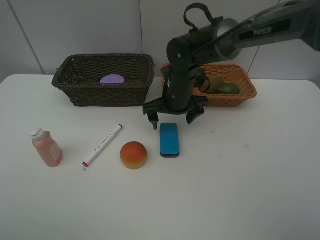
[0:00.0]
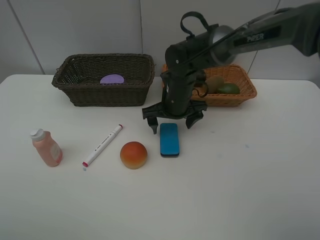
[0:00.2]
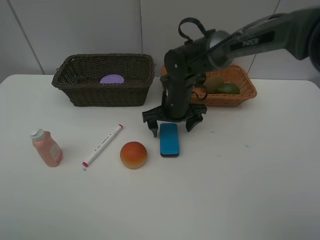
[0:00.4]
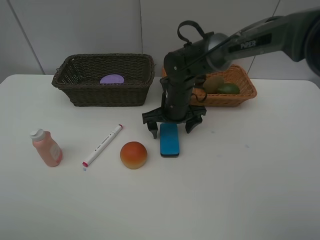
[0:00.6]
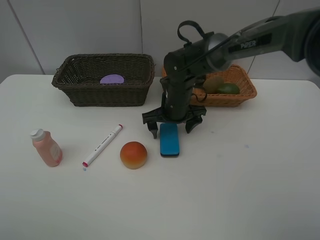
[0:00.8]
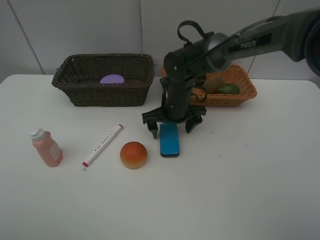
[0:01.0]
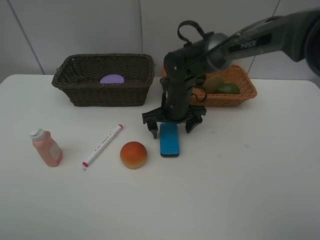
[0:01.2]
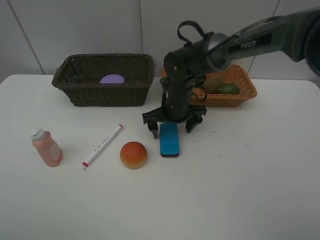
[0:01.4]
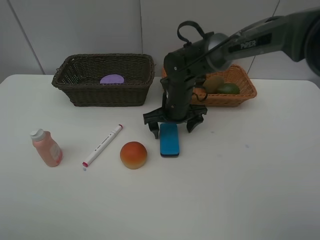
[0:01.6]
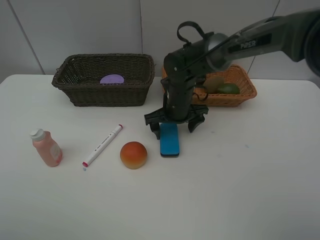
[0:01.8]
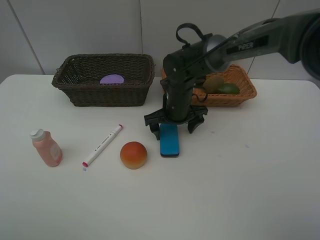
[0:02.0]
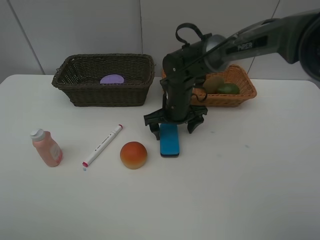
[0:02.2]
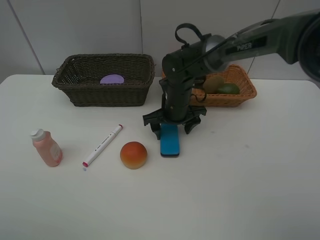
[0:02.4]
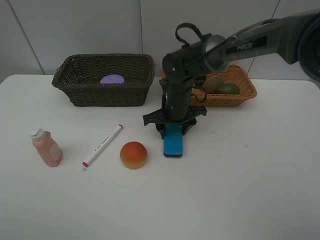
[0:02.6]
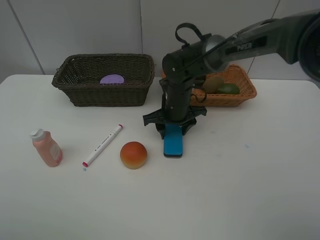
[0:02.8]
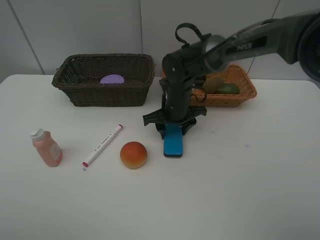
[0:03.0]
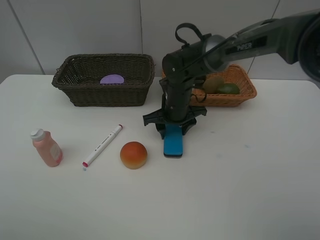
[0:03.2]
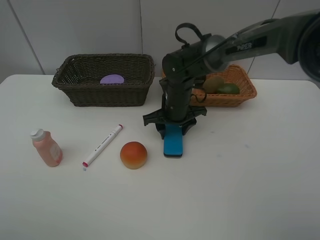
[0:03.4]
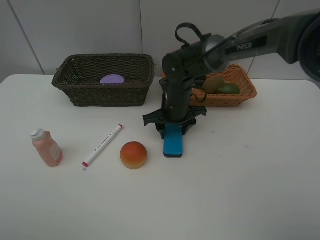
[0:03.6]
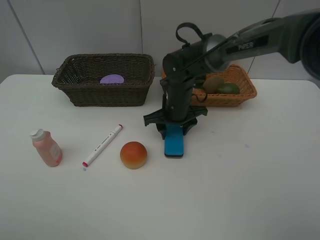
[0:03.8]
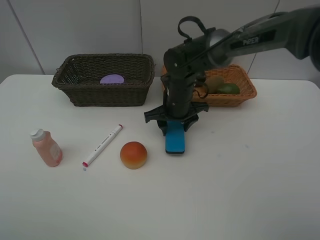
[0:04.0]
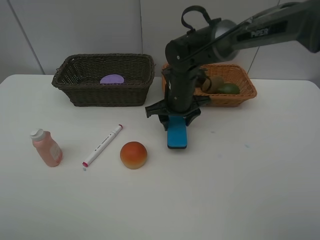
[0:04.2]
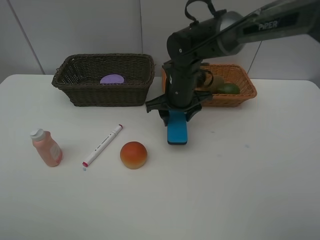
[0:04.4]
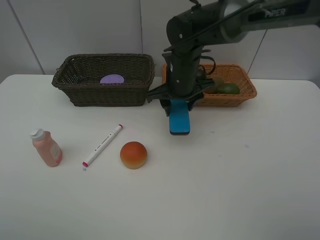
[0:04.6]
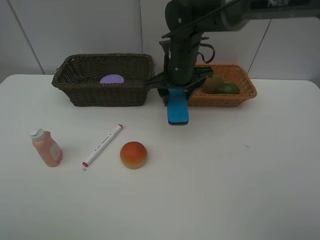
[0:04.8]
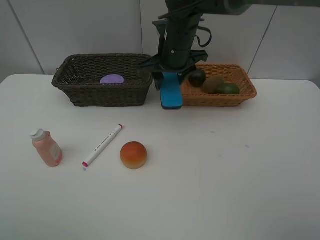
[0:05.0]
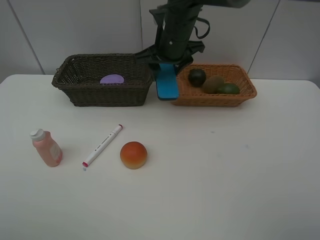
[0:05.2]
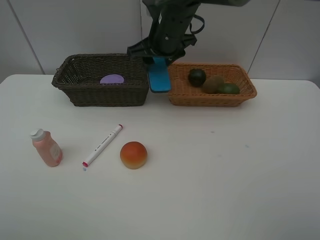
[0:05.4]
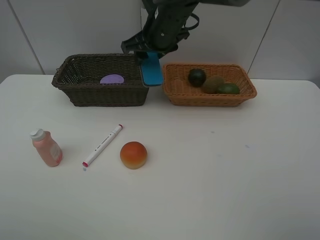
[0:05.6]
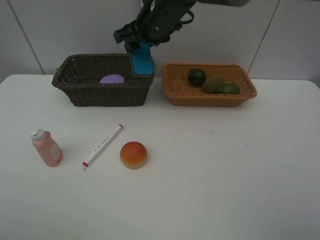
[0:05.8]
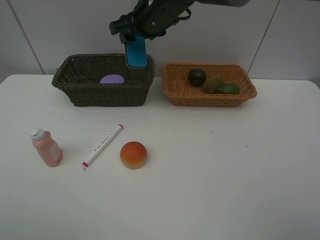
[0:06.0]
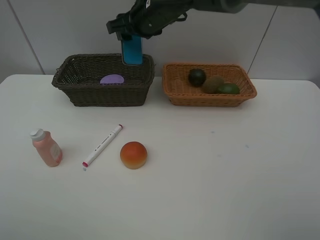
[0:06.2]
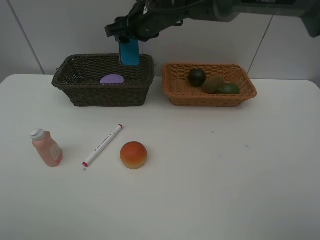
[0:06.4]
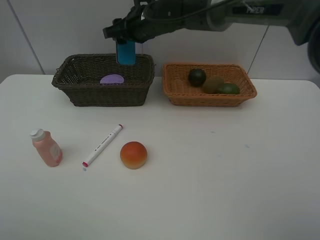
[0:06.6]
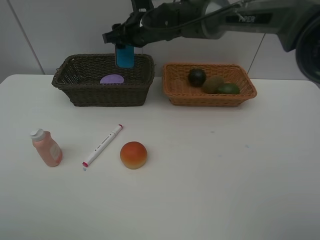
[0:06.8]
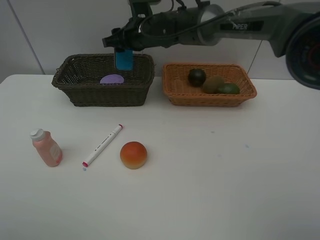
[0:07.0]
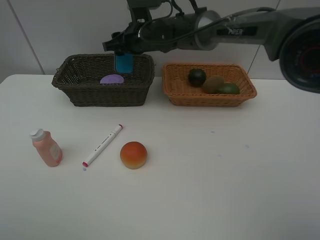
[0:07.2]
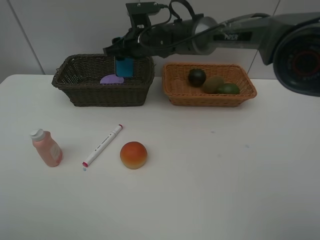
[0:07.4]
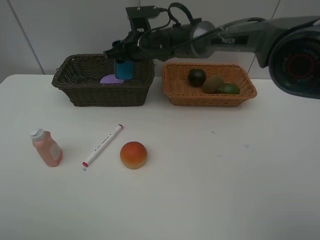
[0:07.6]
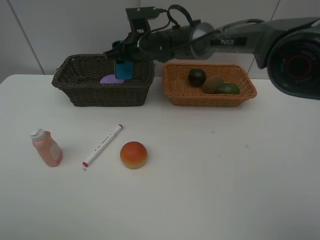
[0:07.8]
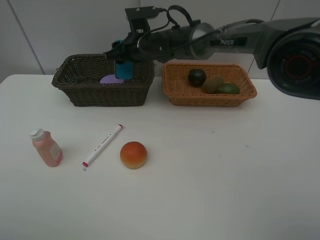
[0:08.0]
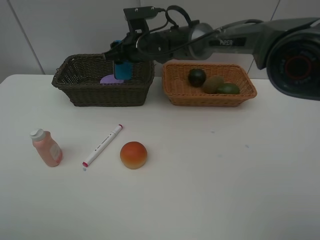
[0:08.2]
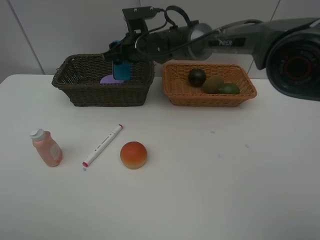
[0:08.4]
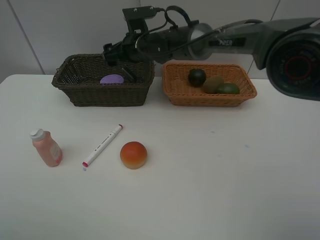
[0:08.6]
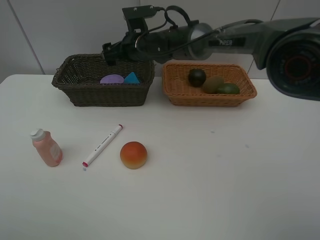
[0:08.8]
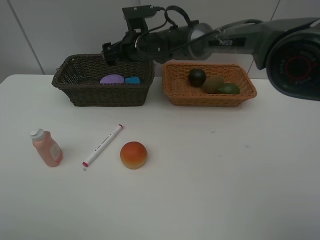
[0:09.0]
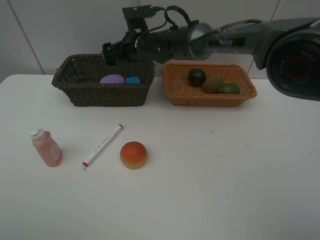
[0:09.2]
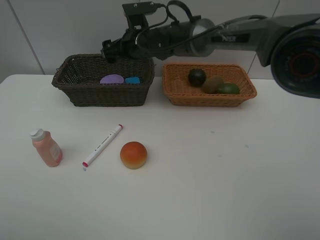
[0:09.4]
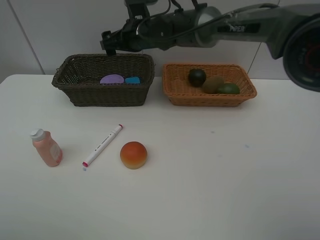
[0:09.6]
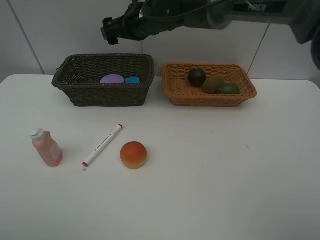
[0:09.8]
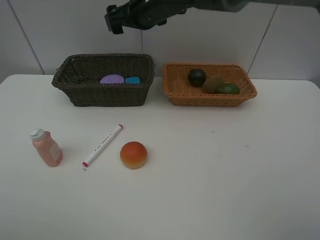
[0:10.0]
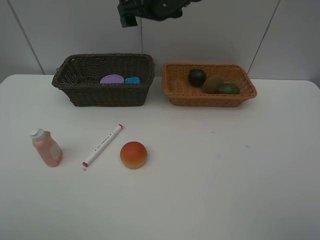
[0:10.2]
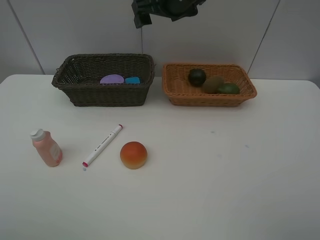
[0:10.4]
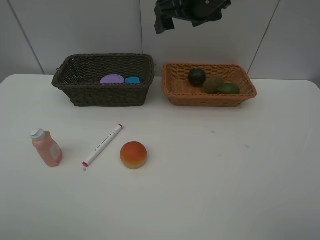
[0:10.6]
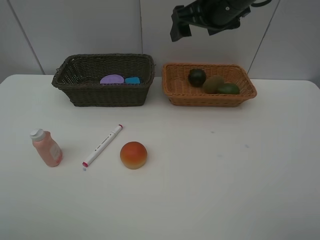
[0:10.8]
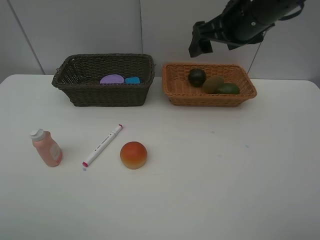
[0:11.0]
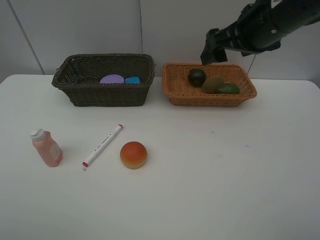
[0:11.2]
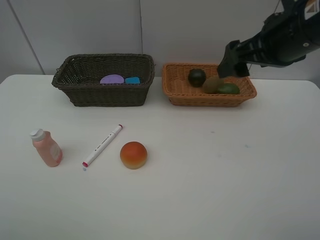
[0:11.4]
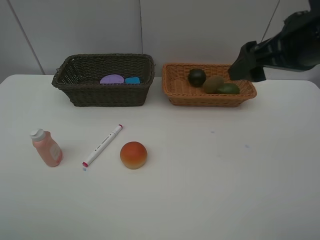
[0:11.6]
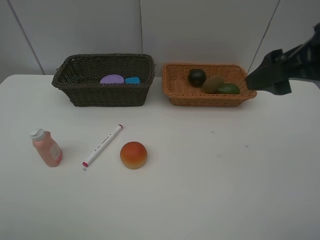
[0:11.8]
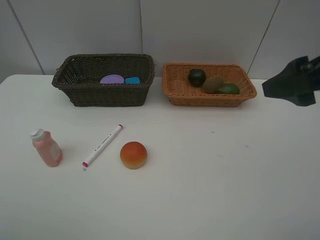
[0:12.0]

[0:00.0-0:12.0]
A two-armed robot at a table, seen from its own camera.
Task of the whole recording: Place multiple objects separately in different baskets.
Step, 0:00.0 to 0:04.2: Pick up blackboard eraser with right gripper.
Step, 0:04.4 to 0:09.0: Place the blackboard eraser in the dark basket with right gripper.
0:00.0 to 0:01.6: There are only small adjustments of the grippers.
0:01.6 to 0:03.0: The right gripper closes up.
0:03.0 to 0:04.4: The right gripper travels upward by approximately 5 cm.
0:04.4 to 0:06.0: The right gripper goes approximately 15 cm upward, forward and to the left.
0:06.0 to 0:07.6: The right gripper moves downward, approximately 10 cm.
0:07.6 to 0:09.0: The right gripper opens.
0:09.0 to 0:10.4: The right gripper heads upward and to the right, covering approximately 15 cm.
0:10.4 to 0:12.0: The right gripper is displaced backward and to the right by some 30 cm.

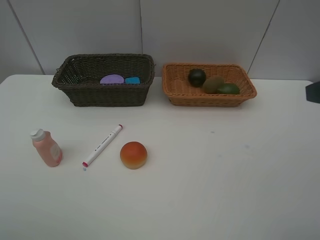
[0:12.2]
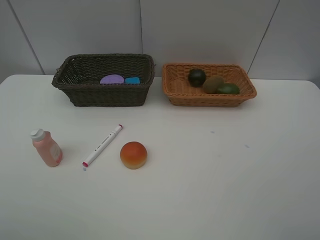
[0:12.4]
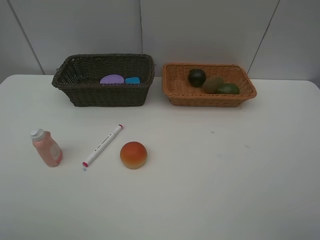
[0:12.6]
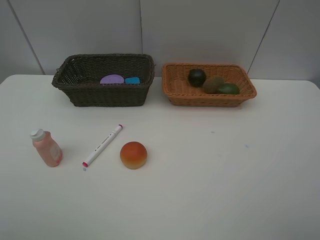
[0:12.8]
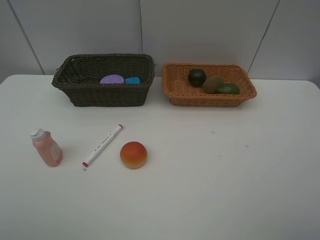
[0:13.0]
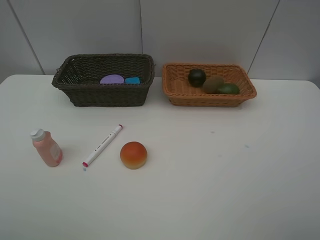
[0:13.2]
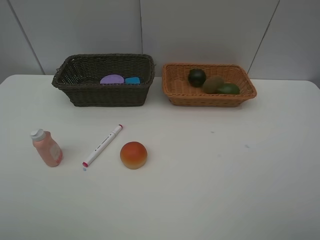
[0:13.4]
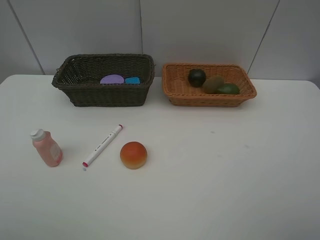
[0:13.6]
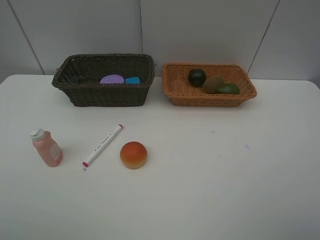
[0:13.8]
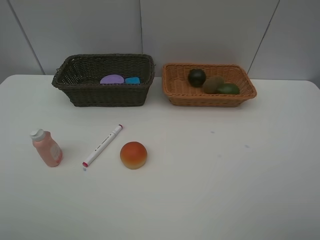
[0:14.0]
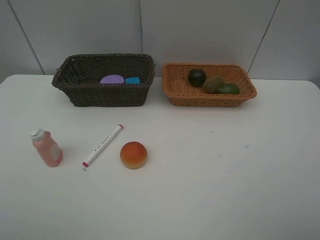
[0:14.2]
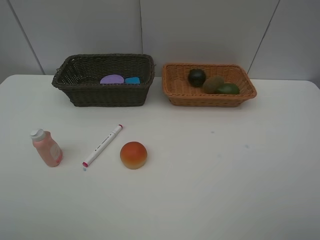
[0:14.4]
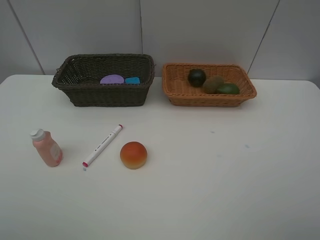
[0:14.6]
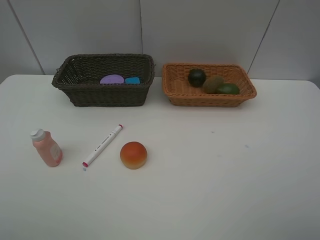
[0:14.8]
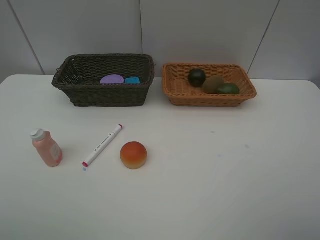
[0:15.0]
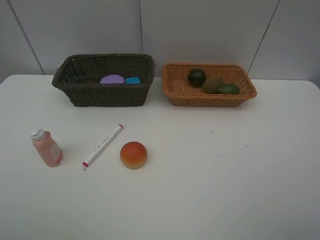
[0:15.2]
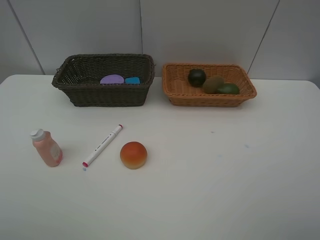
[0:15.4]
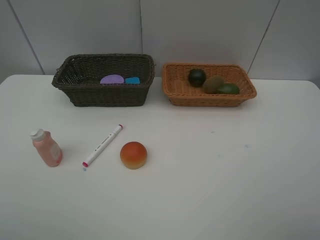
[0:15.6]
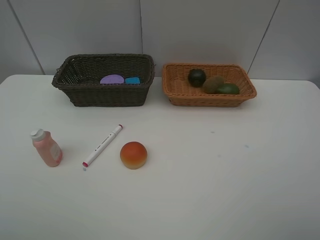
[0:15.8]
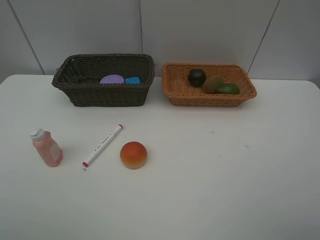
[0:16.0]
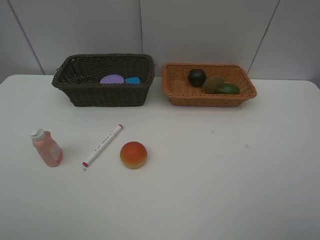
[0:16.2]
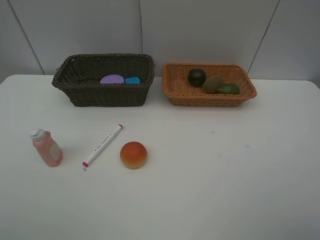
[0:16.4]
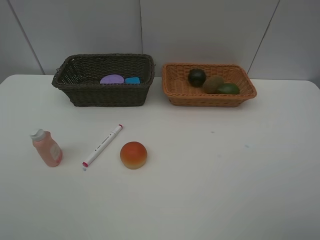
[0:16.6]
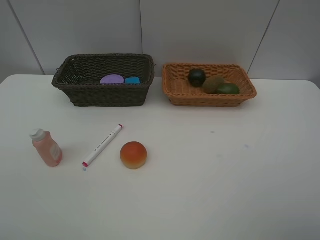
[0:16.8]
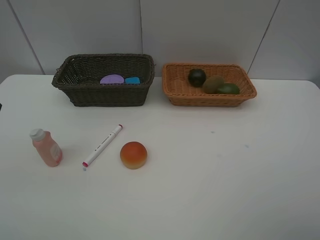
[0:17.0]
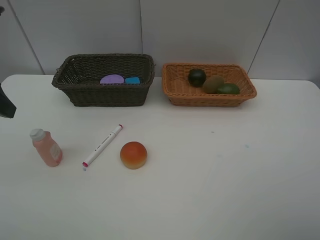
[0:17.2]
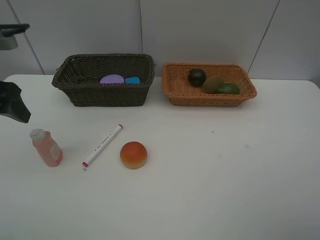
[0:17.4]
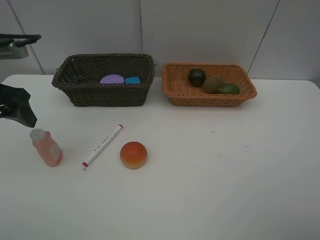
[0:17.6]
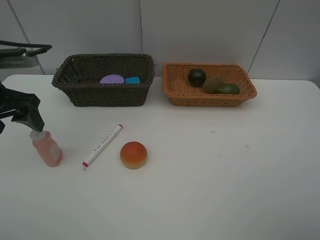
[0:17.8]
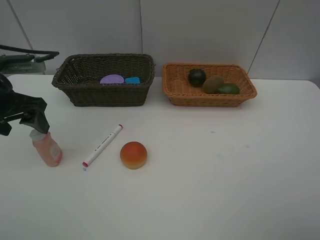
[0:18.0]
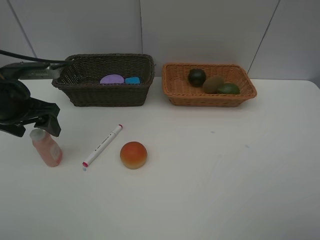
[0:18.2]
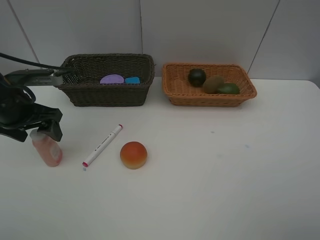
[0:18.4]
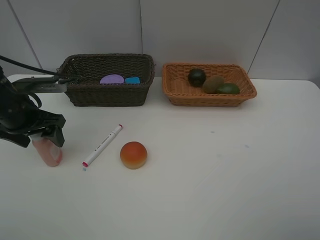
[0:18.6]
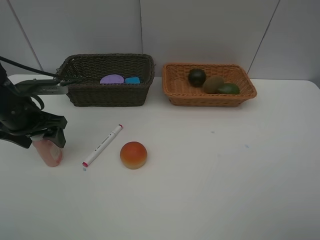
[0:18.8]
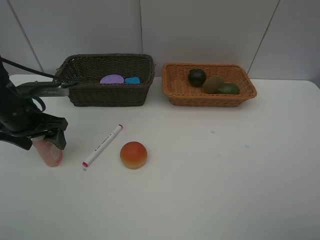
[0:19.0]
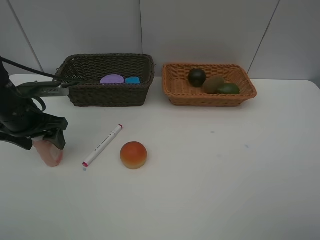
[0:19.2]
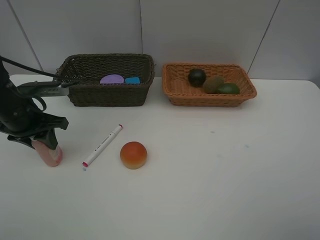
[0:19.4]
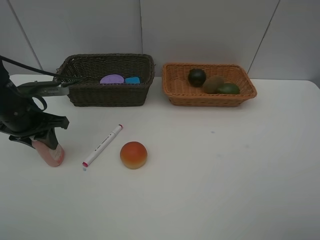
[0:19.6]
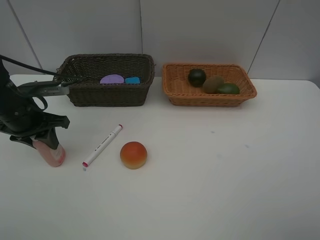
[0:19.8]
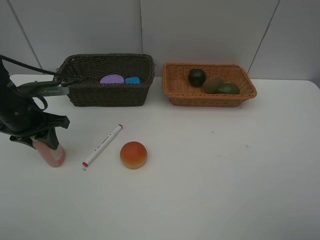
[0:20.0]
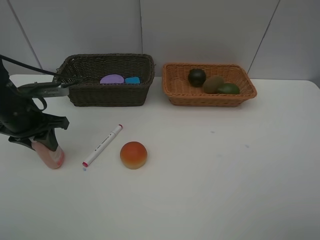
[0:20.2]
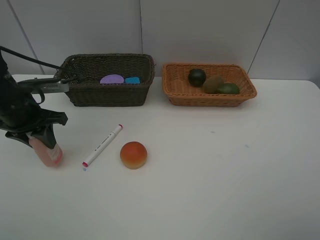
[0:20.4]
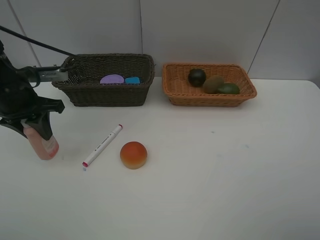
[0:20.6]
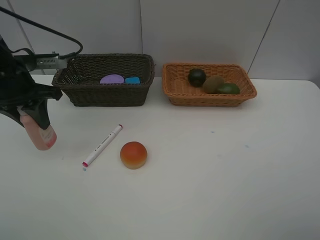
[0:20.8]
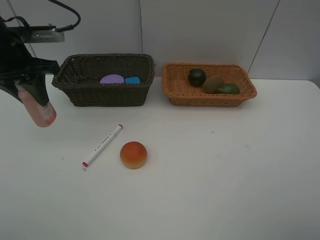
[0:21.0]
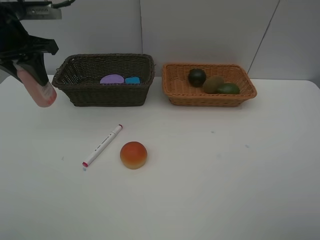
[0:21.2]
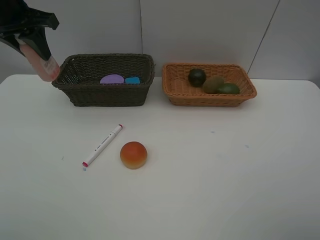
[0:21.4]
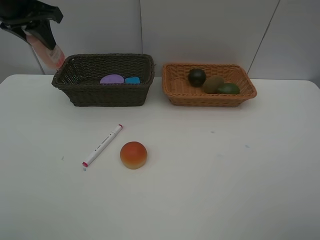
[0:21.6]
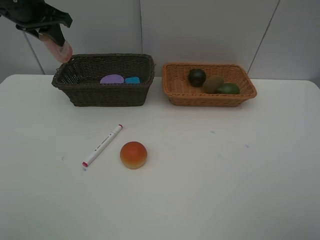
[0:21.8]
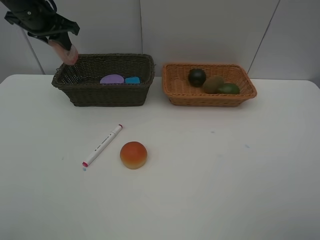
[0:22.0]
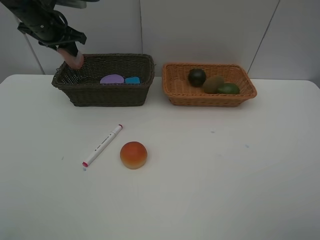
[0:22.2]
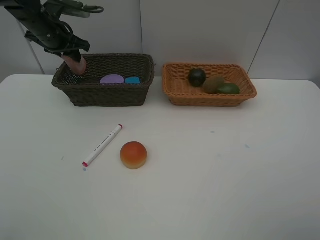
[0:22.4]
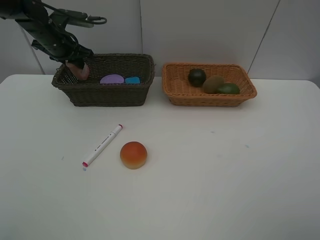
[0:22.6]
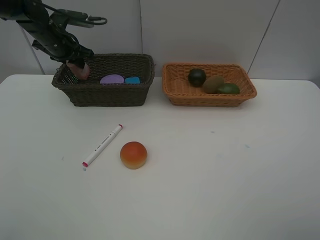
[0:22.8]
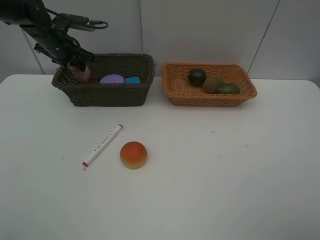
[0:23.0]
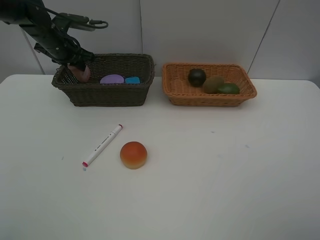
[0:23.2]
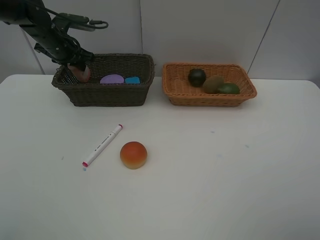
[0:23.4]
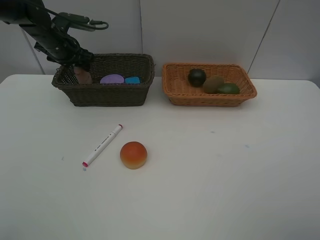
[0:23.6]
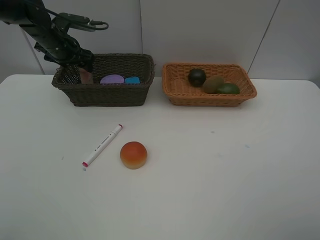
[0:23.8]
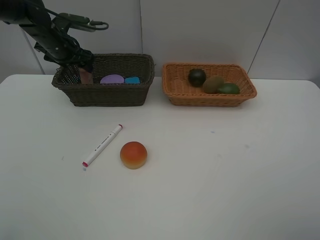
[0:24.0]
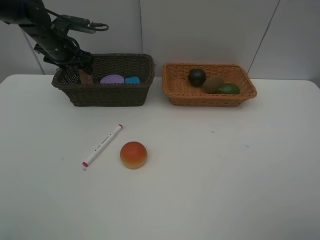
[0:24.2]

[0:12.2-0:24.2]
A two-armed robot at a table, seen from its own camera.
Task of the whole recording: Place multiple objects separately in different baskets.
Step, 0:12.2 to 0:20.4: Pick up the laundry detergent with left gripper.
0:13.8 to 0:15.2: Neither gripper changes place.
0:16.6 to 0:18.2: The left gripper moves forward and downward, some 20 cm.
0:18.2 to 0:19.8: The left gripper closes its fingers.
0:19.8 to 0:21.2: The left gripper goes about 15 cm upward and forward.
0:21.2 to 0:22.6: The left gripper shifts approximately 15 cm forward and downward.
0:22.6 to 0:24.2: The left gripper opens up.
